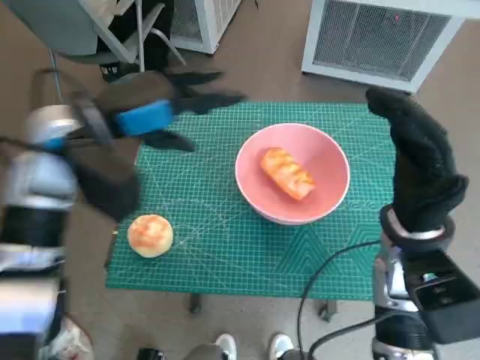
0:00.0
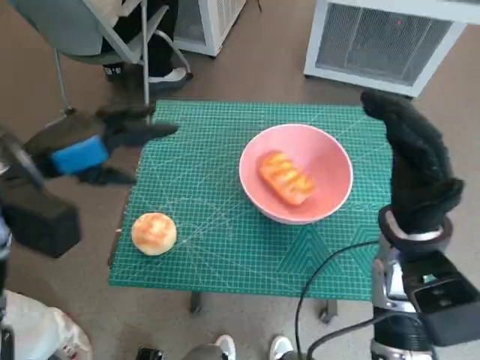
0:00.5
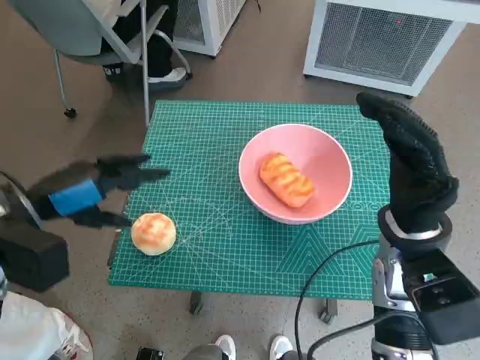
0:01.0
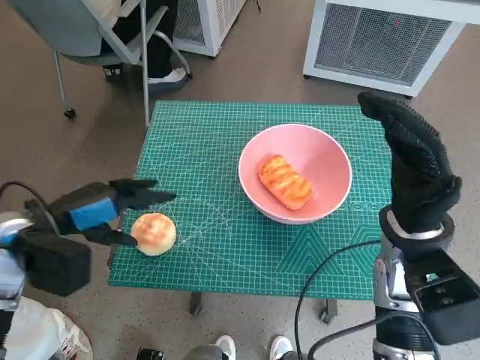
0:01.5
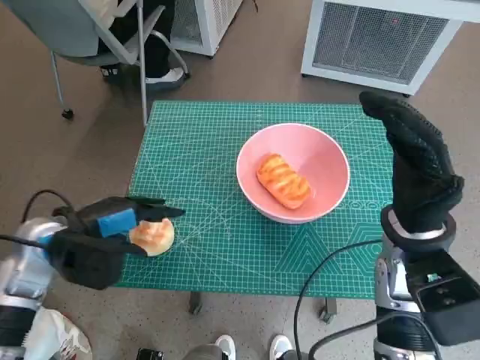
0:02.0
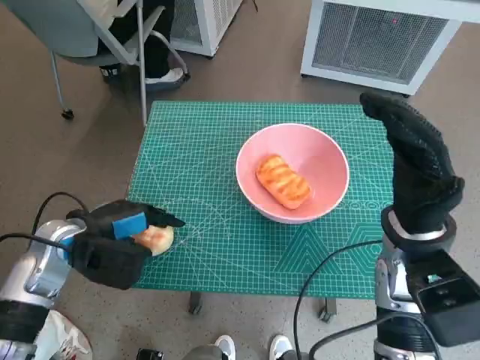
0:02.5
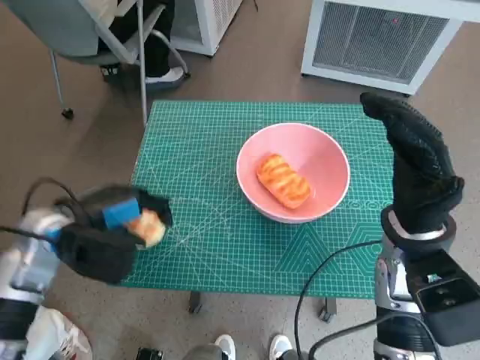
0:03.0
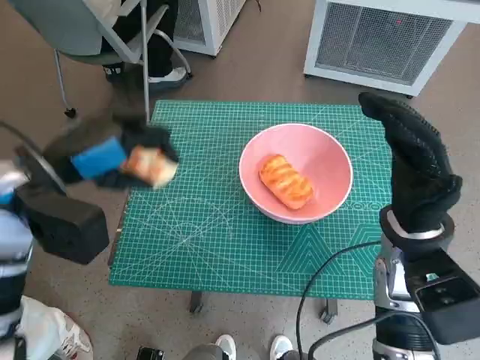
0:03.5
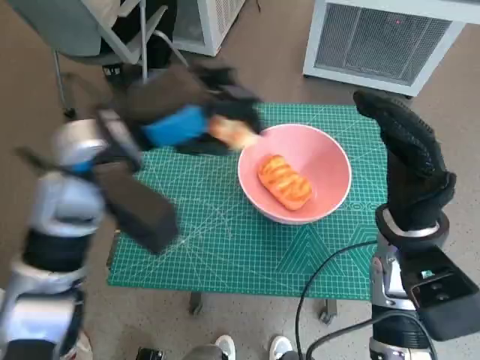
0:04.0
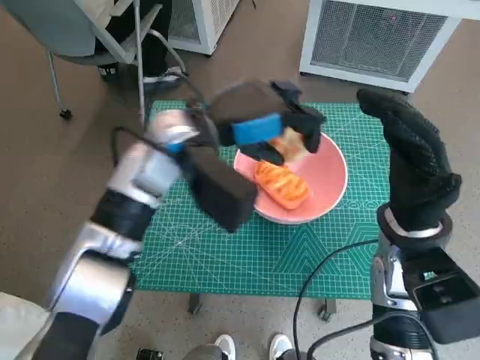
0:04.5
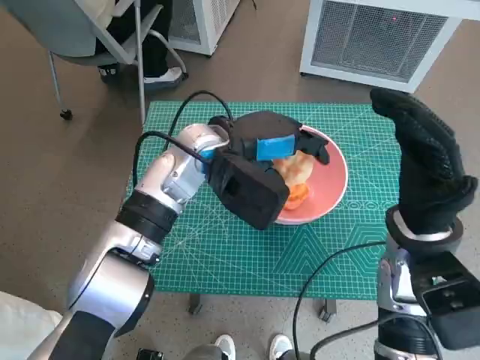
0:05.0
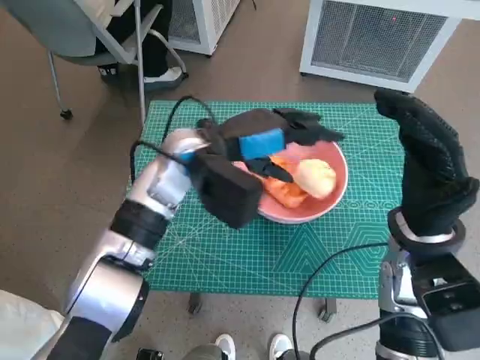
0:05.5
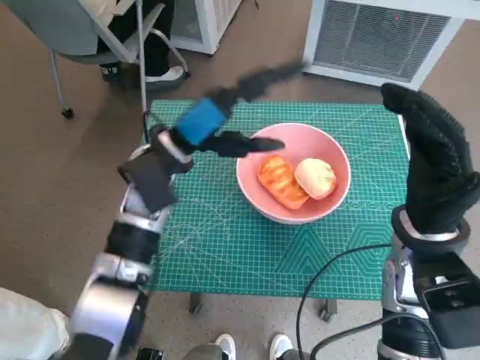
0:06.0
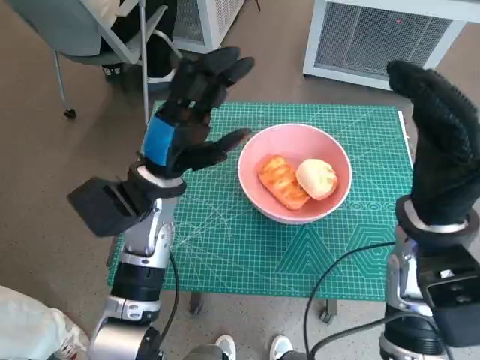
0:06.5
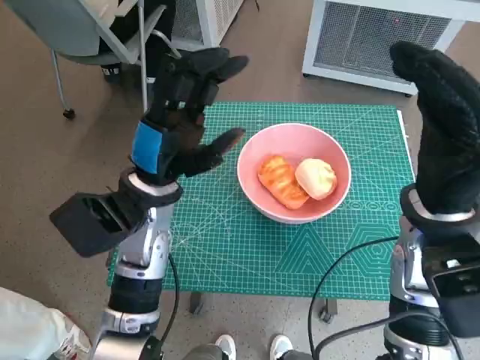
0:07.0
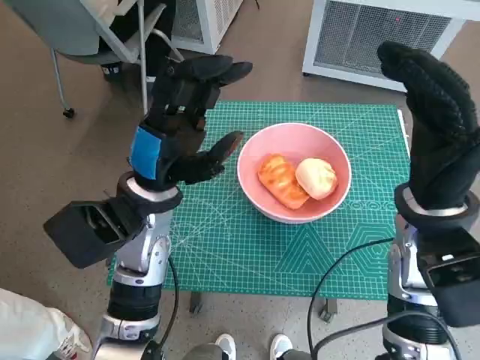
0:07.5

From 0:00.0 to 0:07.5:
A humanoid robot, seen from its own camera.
Task of the whole recording: Push the bowl to the center of the table and put the bread into the bowl.
Step, from 0:00.0 to 0:02.5: Grasp the round bread with left hand.
Step, from 0:03.0 to 0:05.5: Place the round bread in pink bowl with left hand.
From 0:00.0 to 0:02.0: The left hand goes about 15 cm downward, to the left and backward.
From 0:02.0 to 0:04.0: The left hand moves upward and to the right, about 15 cm.
From 0:04.0 to 0:05.5: The left hand shifts roughly 10 cm to the right, downward and forward.
From 0:05.5 to 0:07.5: The left hand shifts roughly 10 cm backward and to the left.

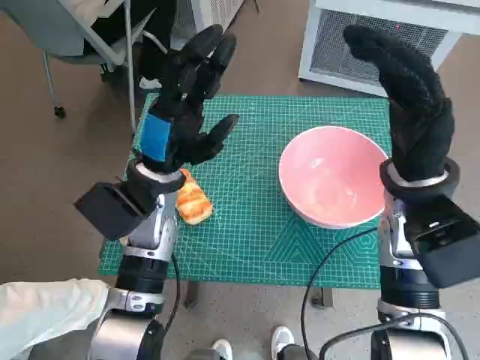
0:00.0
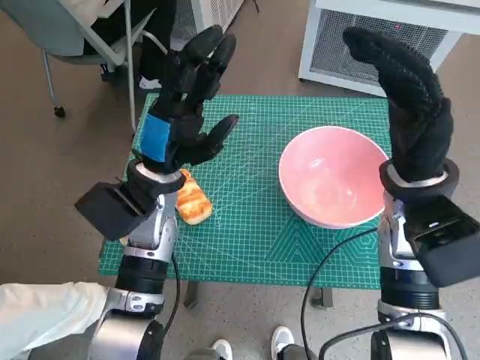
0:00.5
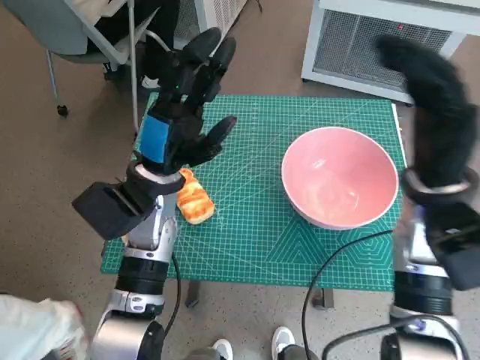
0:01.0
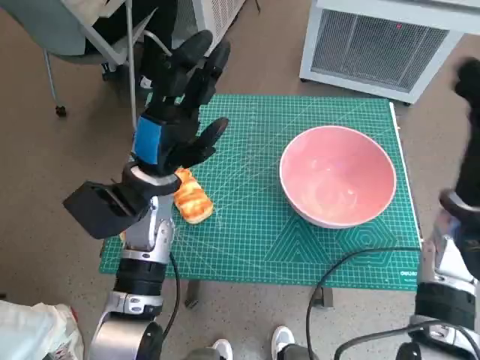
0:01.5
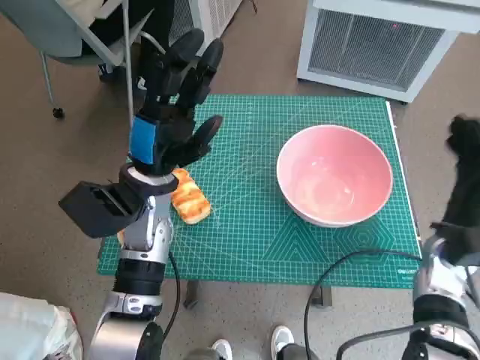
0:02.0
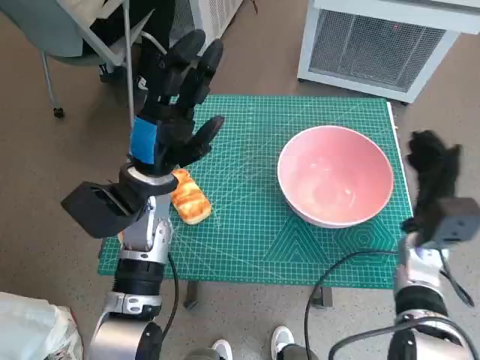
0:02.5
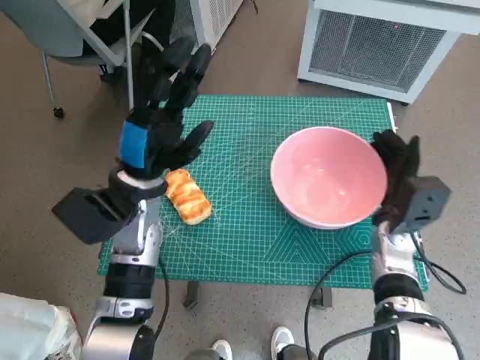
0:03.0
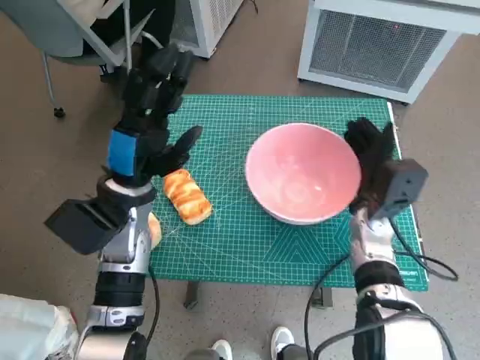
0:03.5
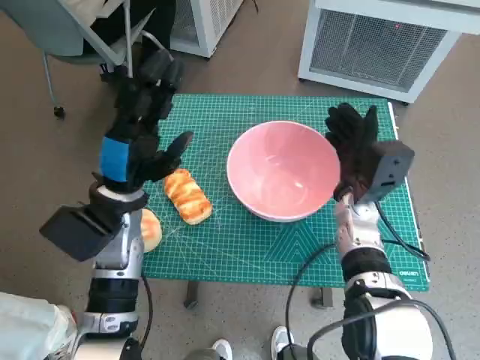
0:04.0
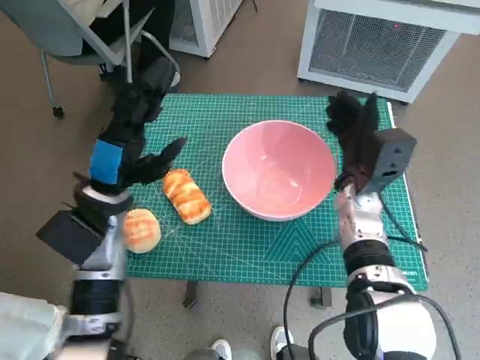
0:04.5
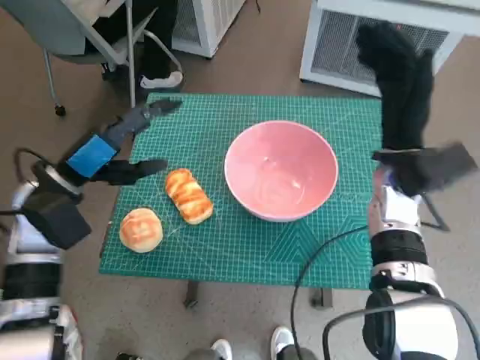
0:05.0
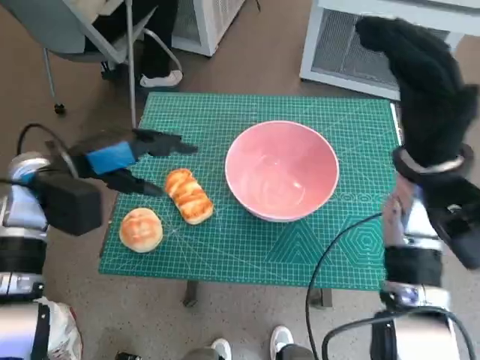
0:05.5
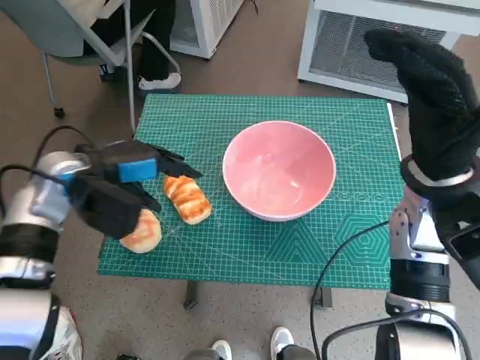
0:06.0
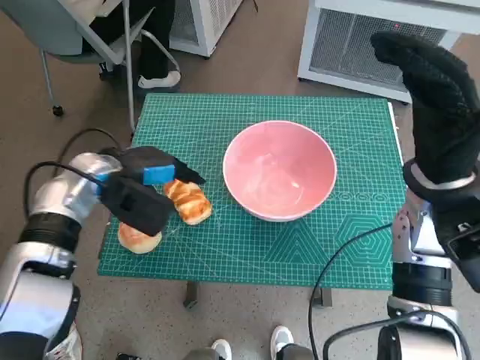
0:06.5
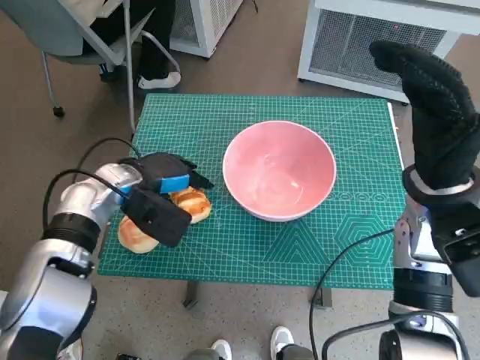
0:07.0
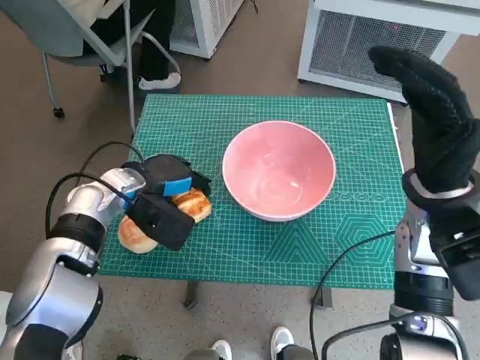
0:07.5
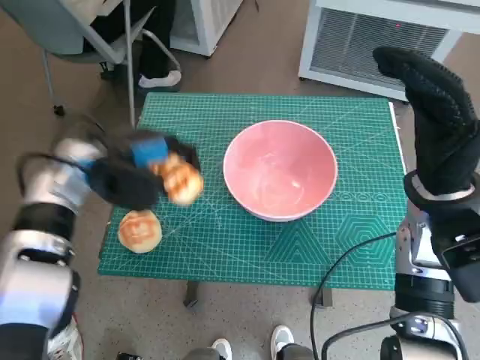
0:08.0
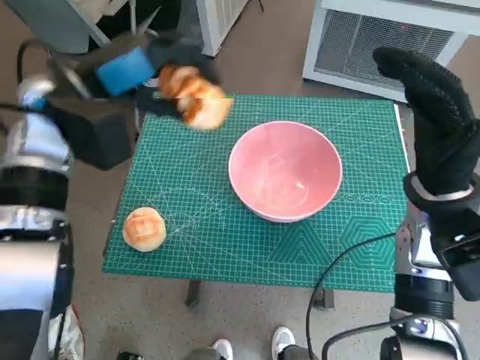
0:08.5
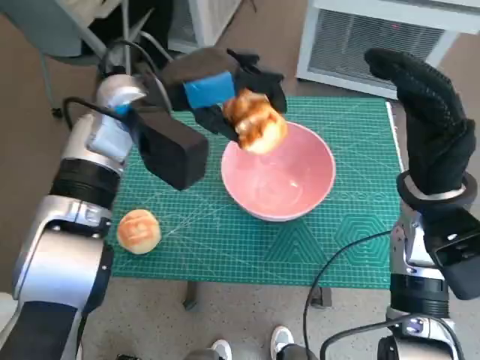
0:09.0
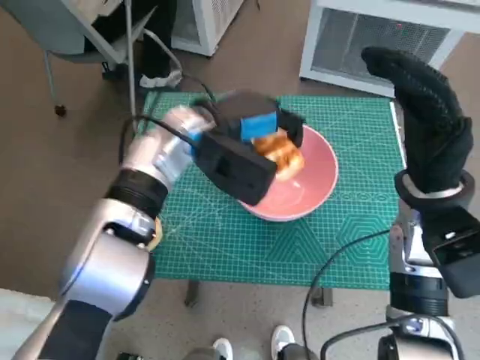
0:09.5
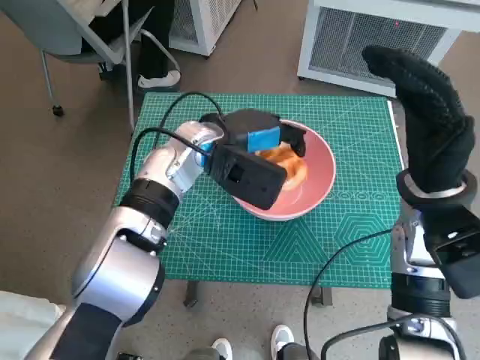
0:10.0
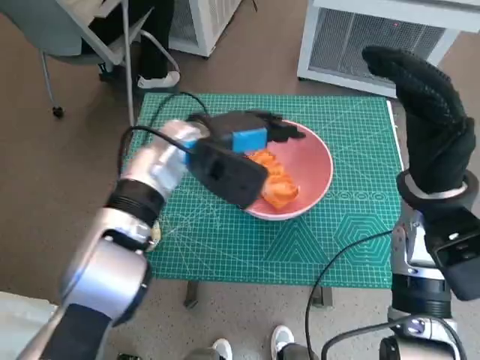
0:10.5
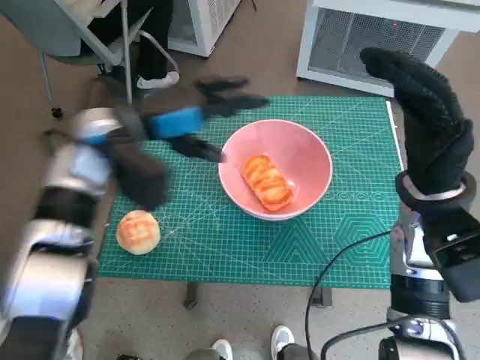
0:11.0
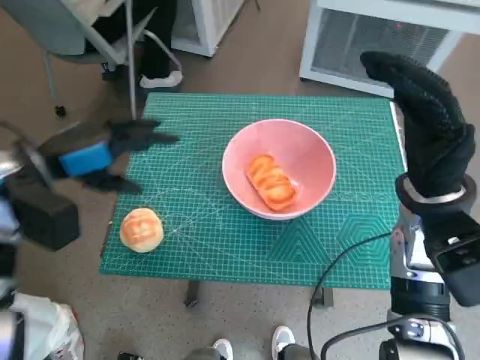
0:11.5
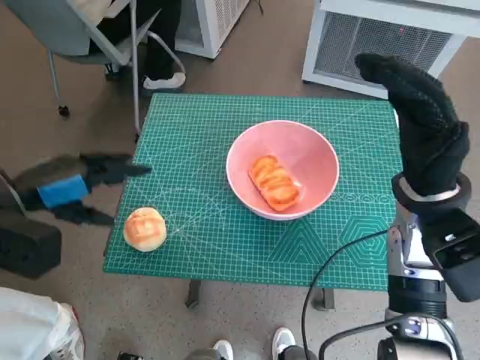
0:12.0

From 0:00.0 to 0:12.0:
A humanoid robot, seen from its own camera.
Task of the whole recording: Push the bowl to the center of the table and put the bread into the bowl.
Step, from 0:00.0 to 0:04.5: Move the pink bowl to the center of table with right hand.
Step, from 0:05.0 to 0:07.5: Grasp the long bread with left hand.
Step, from 0:08.0 to 0:10.5: Place the long bread in pink bowl with left hand.
From 0:02.0 to 0:04.0: The right hand moves to the left and forward, approximately 15 cm.
From 0:04.0 to 0:06.0: The right hand moves upward, approximately 10 cm. The left hand moves to the left, some 5 cm.
From 0:08.0 to 0:10.0: The left hand heads to the right, covering roughly 15 cm.
From 0:10.0 to 0:12.0: The left hand shifts some 25 cm to the left and backward.

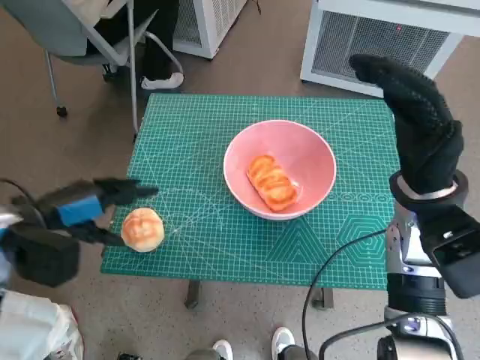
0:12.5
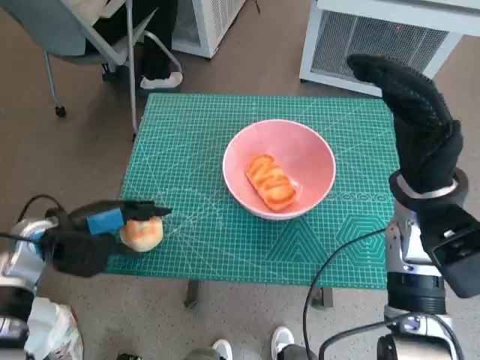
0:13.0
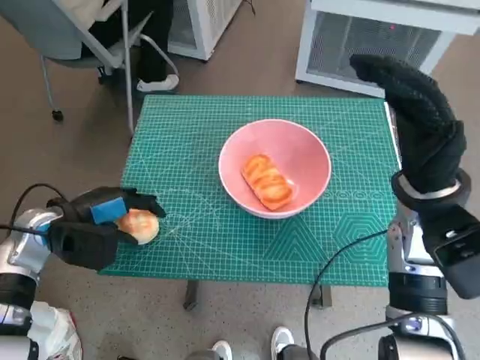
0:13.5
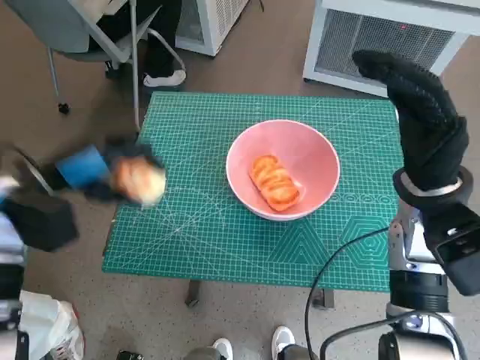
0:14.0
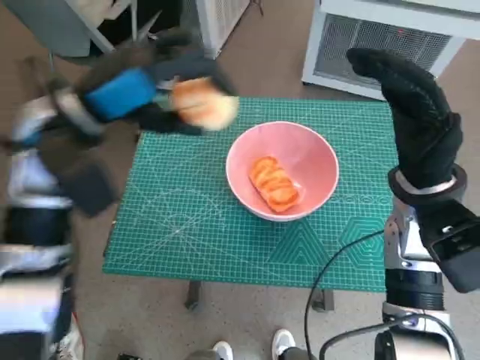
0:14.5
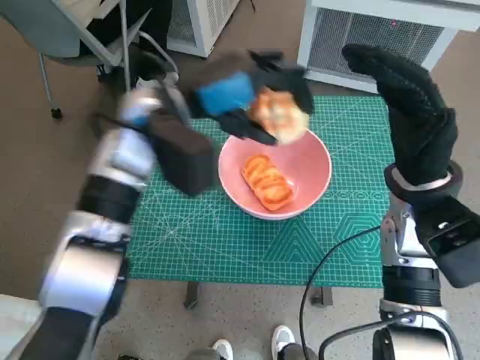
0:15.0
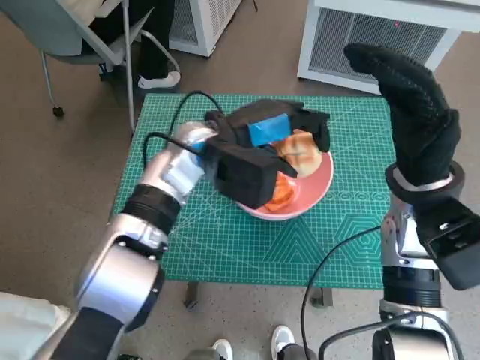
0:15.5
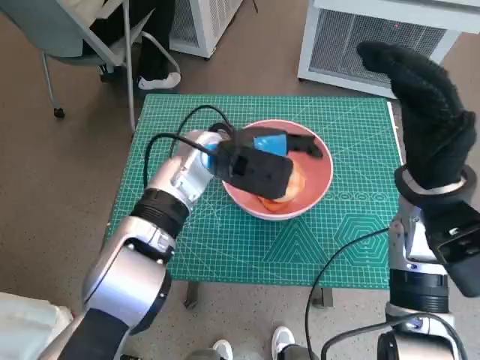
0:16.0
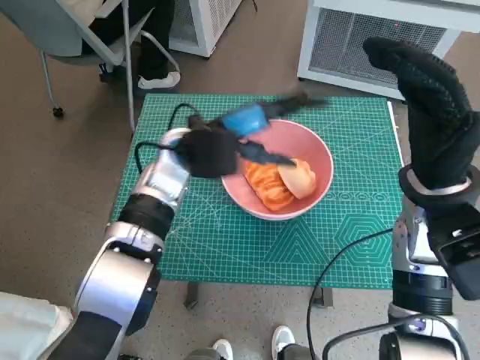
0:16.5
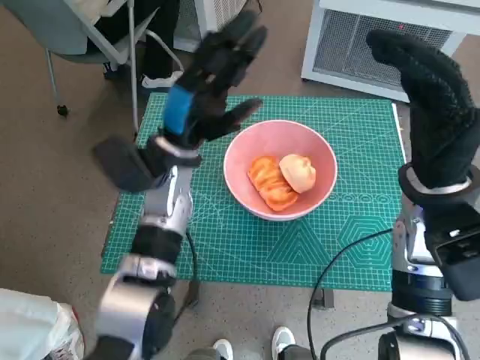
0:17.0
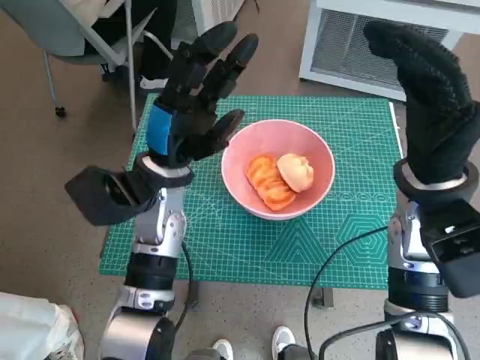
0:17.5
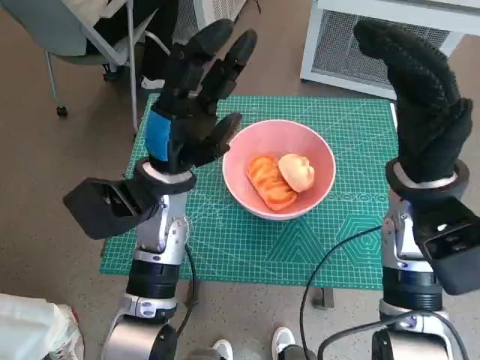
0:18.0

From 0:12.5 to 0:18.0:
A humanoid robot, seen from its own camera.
Task of the whole recording: Push the bowl to the center of the table and put the bread into the bowl.
Step, from 0:14.0 to 0:16.0: Place the round bread in pink bowl with left hand.
From 0:12.5 to 0:14.5: The left hand travels upward, to the right and forward by approximately 15 cm.
From 0:14.5 to 0:16.0: The left hand shifts approximately 15 cm to the right and downward.
From 0:16.0 to 0:18.0: The left hand goes approximately 10 cm backward and to the left.
